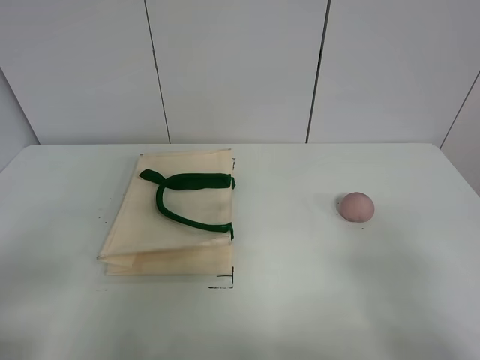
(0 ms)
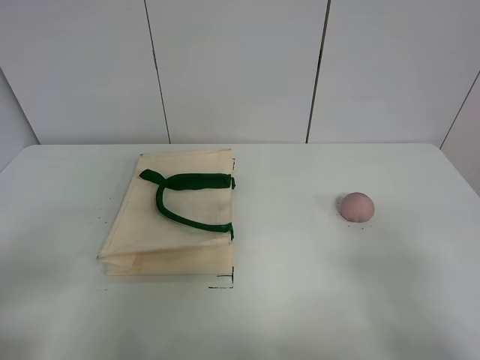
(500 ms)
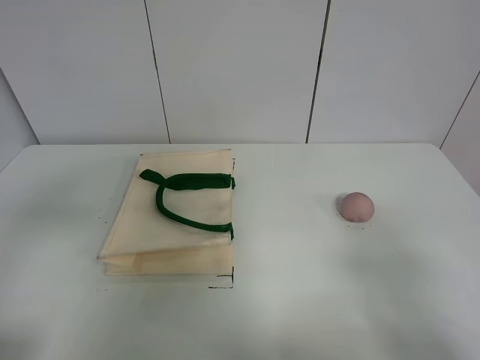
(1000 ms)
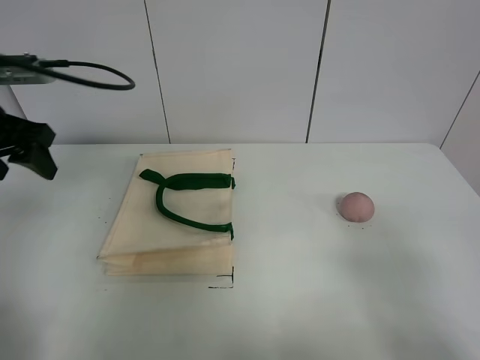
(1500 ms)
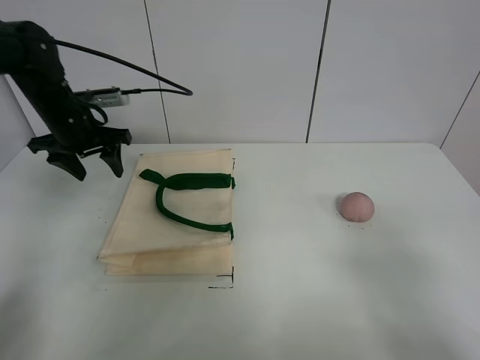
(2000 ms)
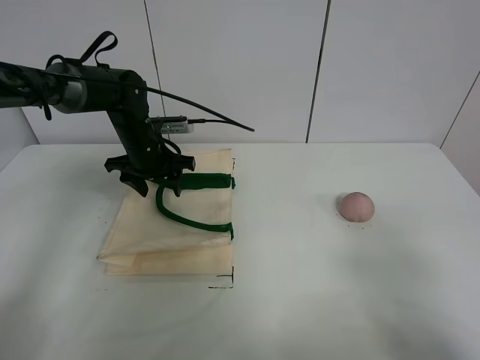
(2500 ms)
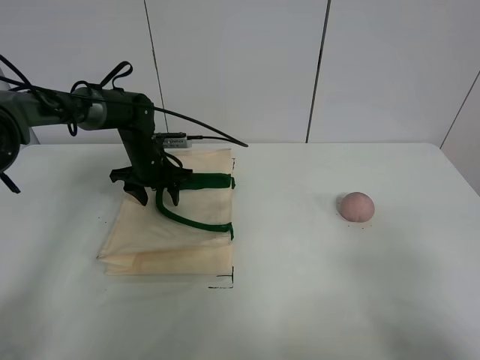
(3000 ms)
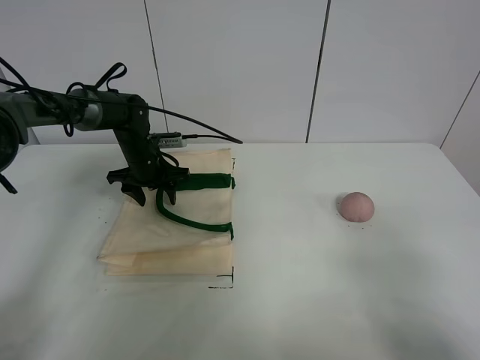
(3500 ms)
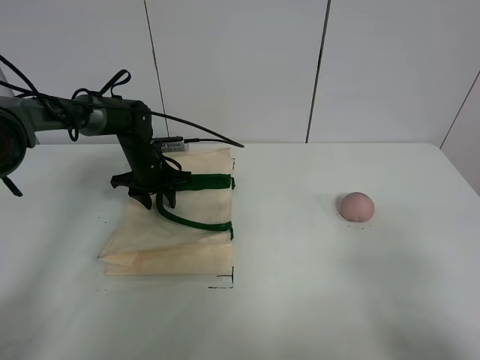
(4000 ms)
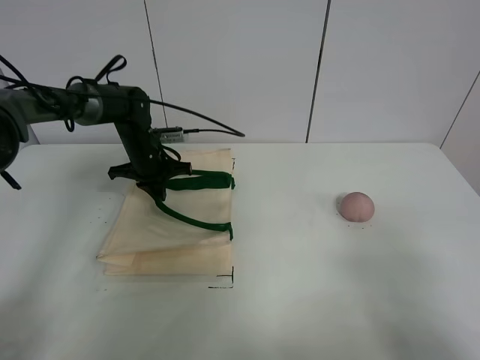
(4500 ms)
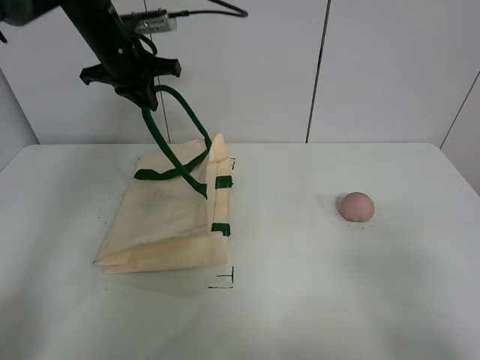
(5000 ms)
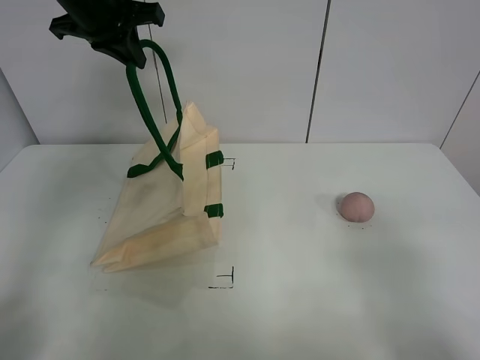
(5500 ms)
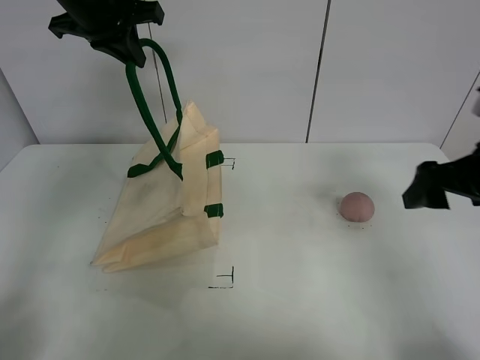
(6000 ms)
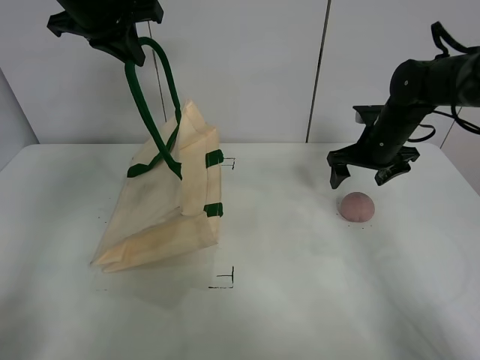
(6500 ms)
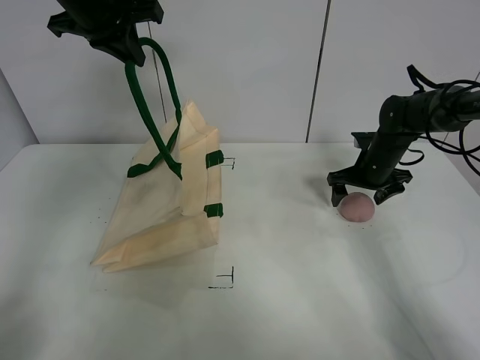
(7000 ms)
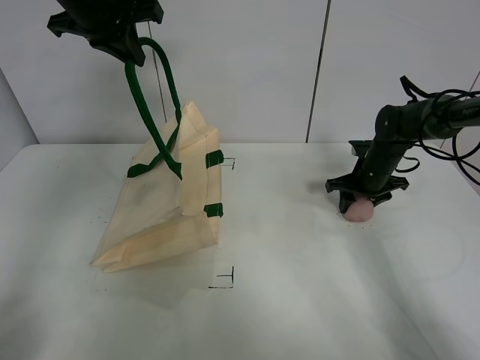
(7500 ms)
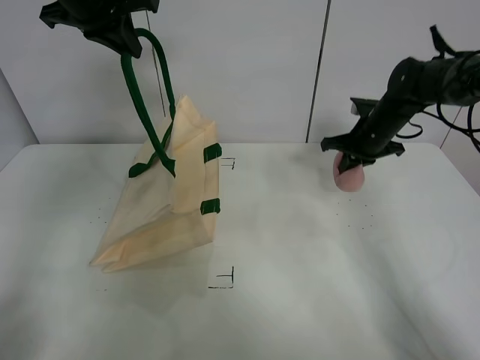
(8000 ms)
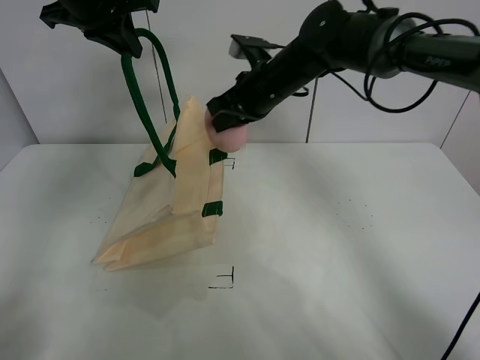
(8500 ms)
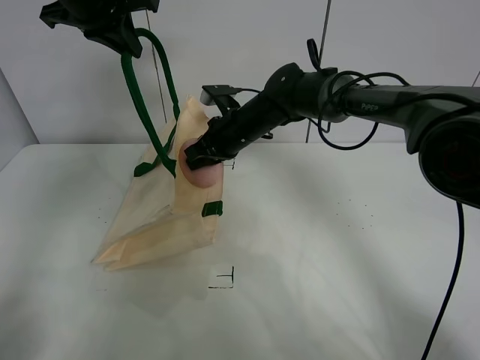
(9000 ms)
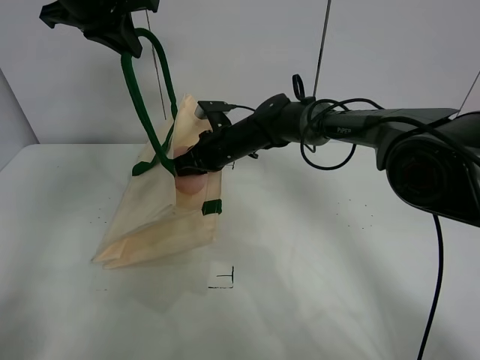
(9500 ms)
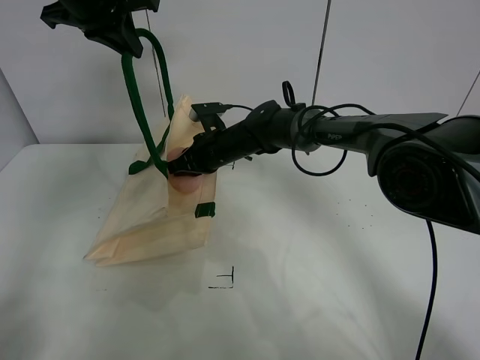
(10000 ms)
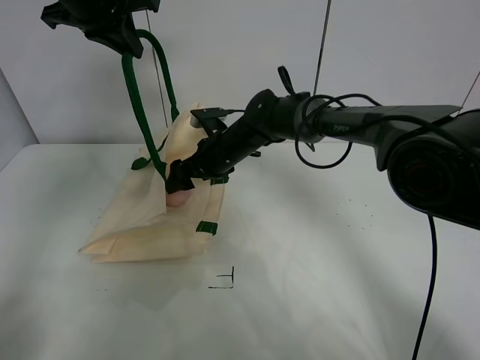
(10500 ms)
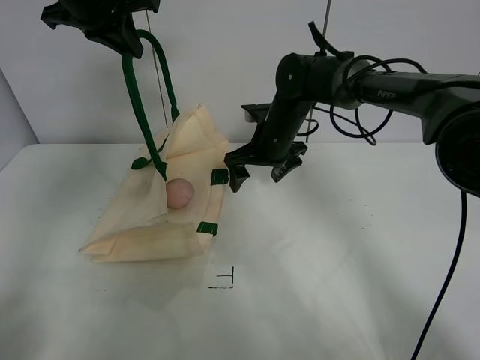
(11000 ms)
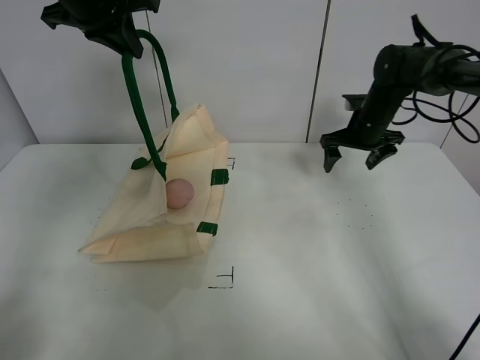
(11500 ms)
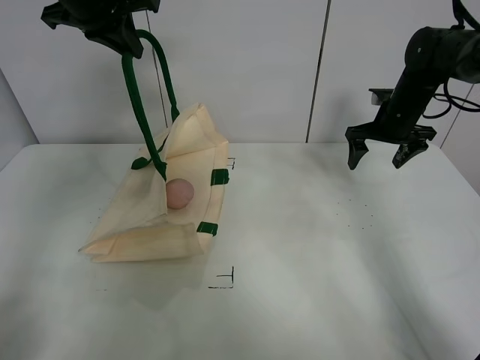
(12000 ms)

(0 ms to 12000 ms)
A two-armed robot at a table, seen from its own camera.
Task of the whole recording: open the white linen bag and put the peach in the bag.
Step, 0 ms - 5500 ms: Lift the handbag with left gripper.
Step, 6000 ms - 7500 ms: Grasp the peach with right gripper.
Step, 8000 ms - 10000 ms: Place the peach in the handbag with right gripper.
0 ms - 2000 ms: The left gripper heads forward, covering some 40 cm.
2000 ms - 4000 ms: The left gripper goes roughly 15 cm downward, to the right and forward, and closes its fingers.
4000 ms - 6000 ms: The right gripper goes roughly 25 cm forward. The left gripper is displaced upward by approximately 30 cm, and closes its fingers.
6000 ms - 8000 ms: The right gripper heads forward, covering some 20 cm, and closes up.
8000 ms - 10000 ms: The right gripper shifts some 25 cm to the left.
10000 ms - 12000 ms: The right gripper heads to the right, covering some 30 cm, and opens up.

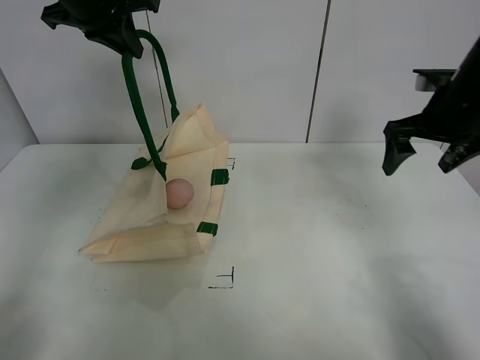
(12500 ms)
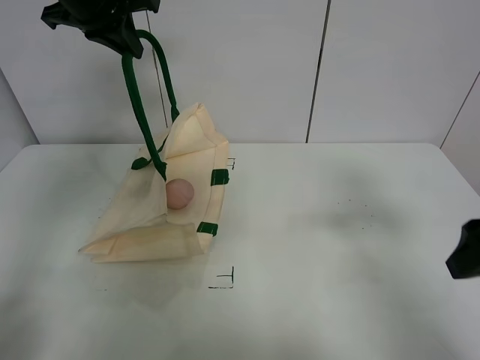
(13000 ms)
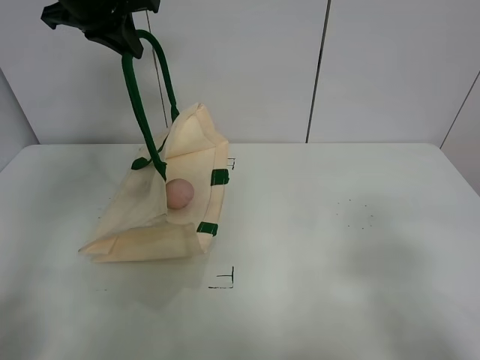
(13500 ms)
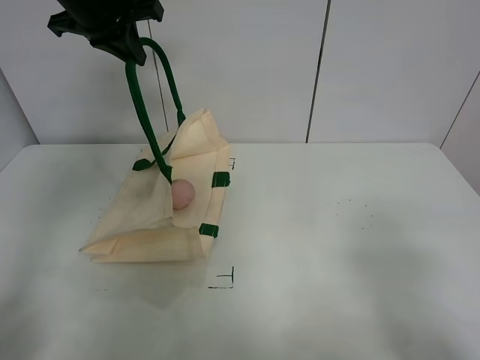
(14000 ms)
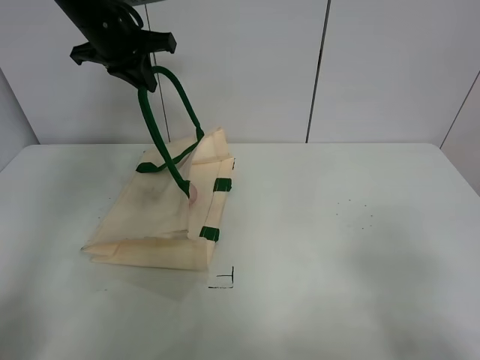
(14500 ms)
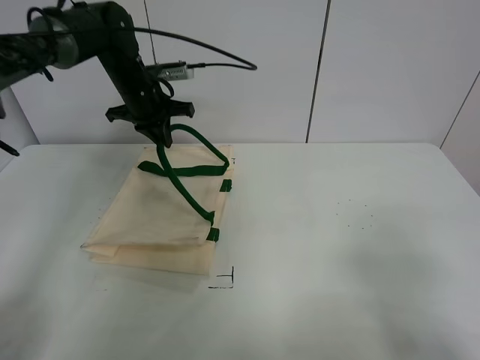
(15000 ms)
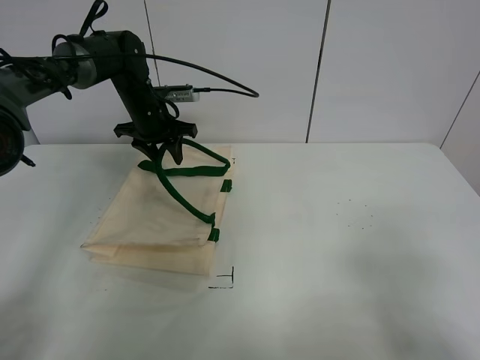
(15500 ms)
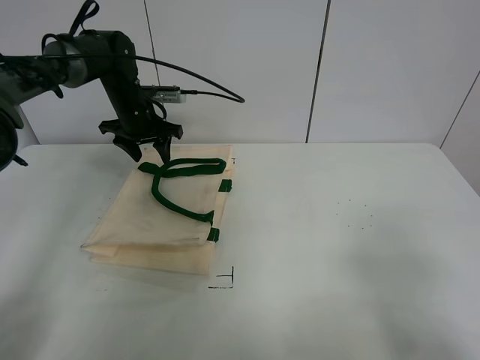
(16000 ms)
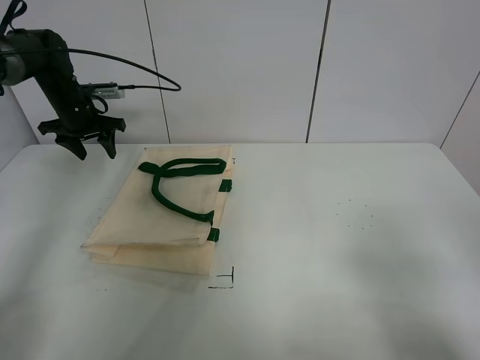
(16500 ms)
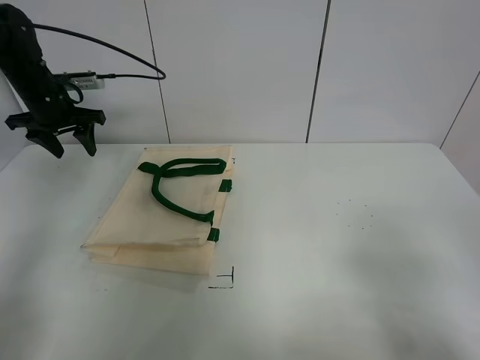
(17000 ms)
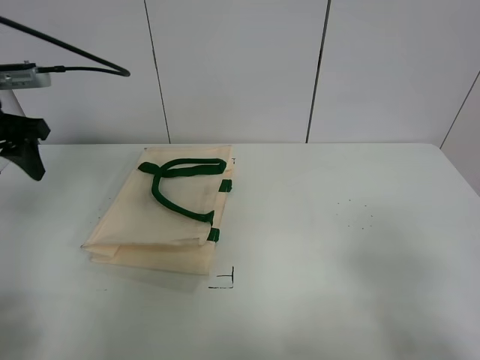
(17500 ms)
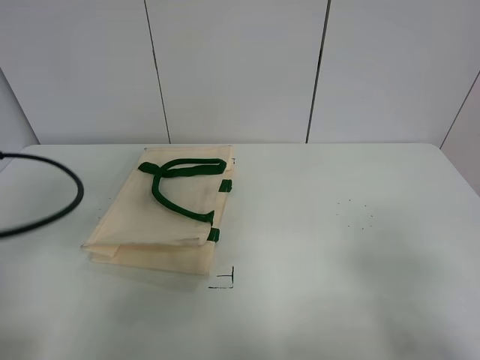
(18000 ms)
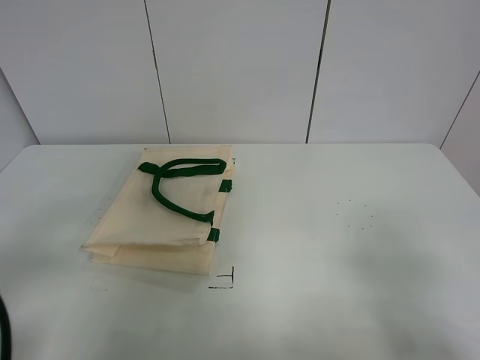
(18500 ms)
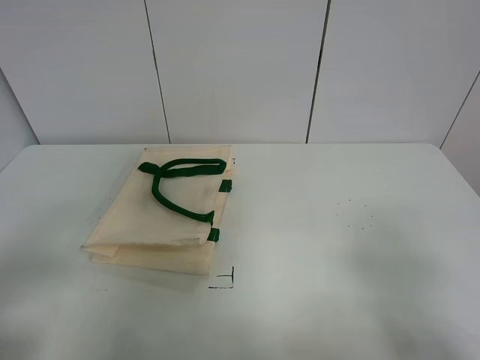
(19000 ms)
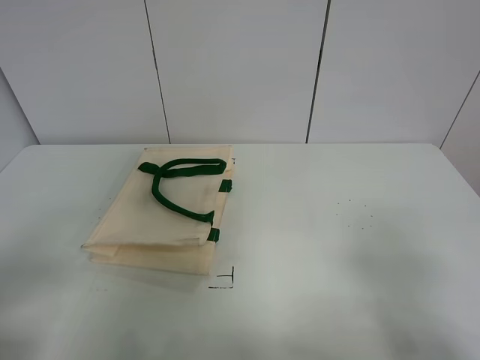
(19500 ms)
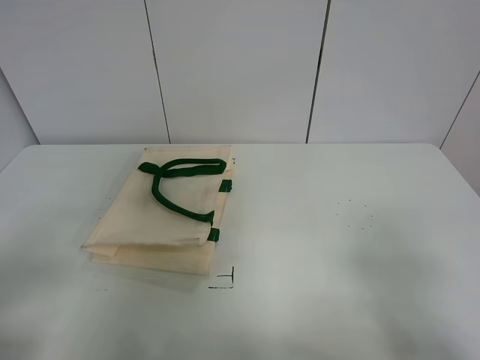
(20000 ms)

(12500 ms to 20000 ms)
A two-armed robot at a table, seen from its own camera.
Task of the whole recording: open the white linen bag and put the peach in the bag.
Step, 12500 ms - 16000 ms: Put down the handbag with left gripper.
12500 ms - 14500 ms: The right gripper travels backward by approximately 35 cm. The left gripper is displaced downward by roughly 5 cm.
14500 ms - 16500 ms: The left gripper moves downward, to the left and forward, roughly 20 cm, and opens up.
16500 ms - 18000 ms: The left gripper shifts some 35 cm backward.
18000 ms - 20000 ms: The left gripper moves backward, about 15 cm.

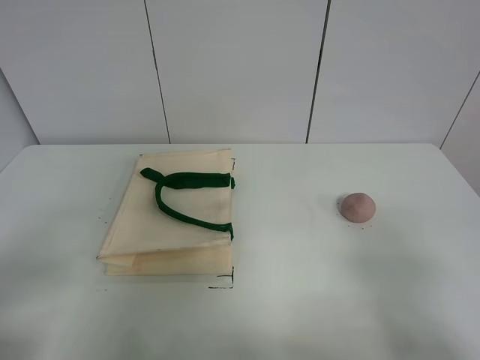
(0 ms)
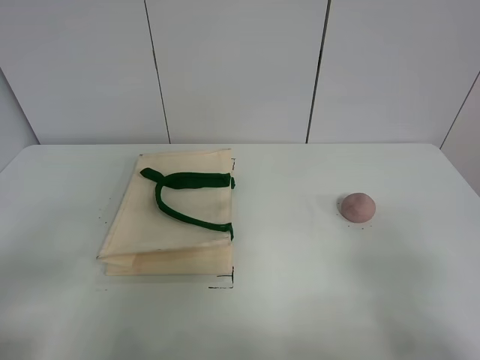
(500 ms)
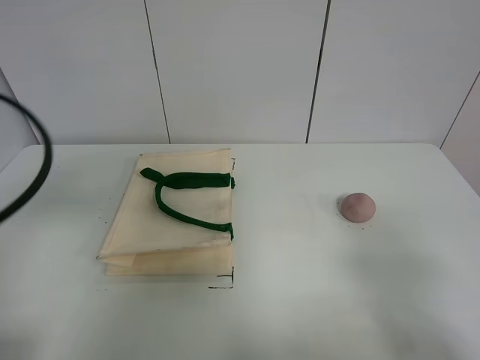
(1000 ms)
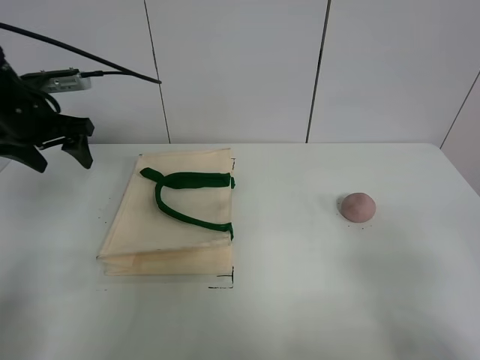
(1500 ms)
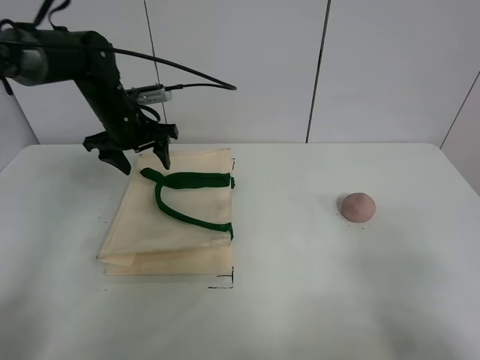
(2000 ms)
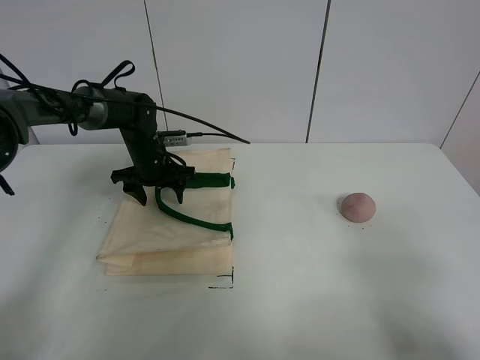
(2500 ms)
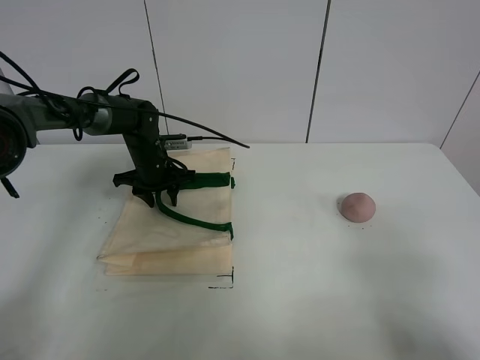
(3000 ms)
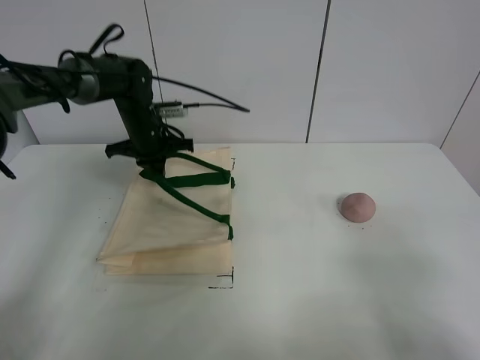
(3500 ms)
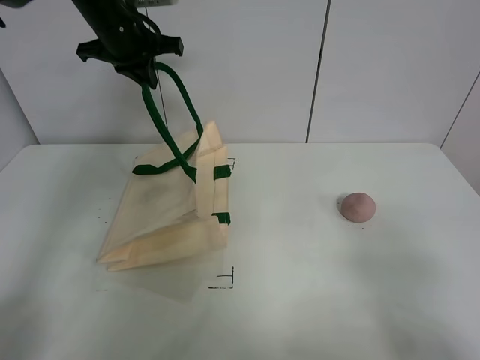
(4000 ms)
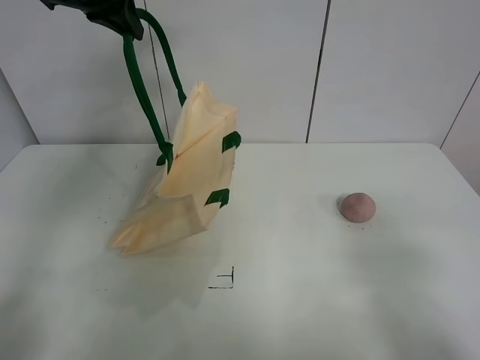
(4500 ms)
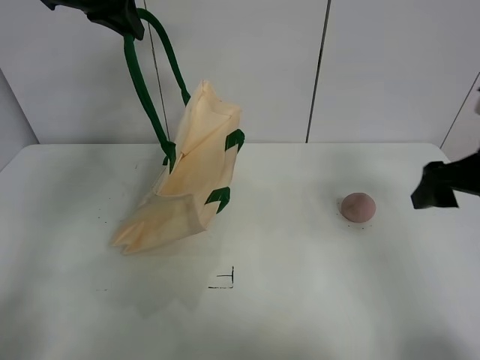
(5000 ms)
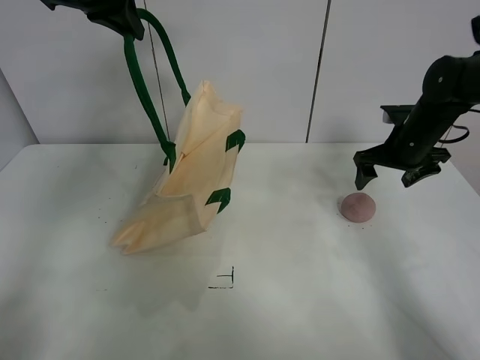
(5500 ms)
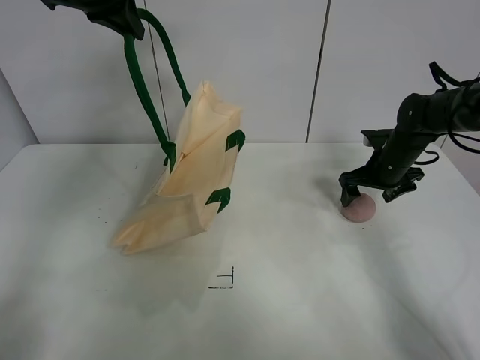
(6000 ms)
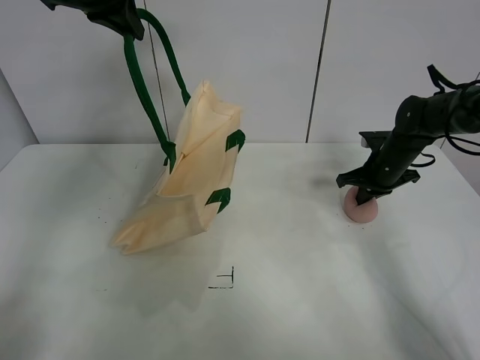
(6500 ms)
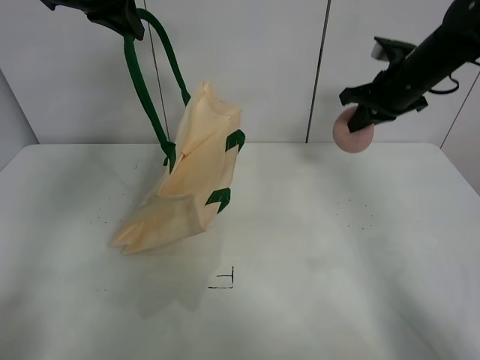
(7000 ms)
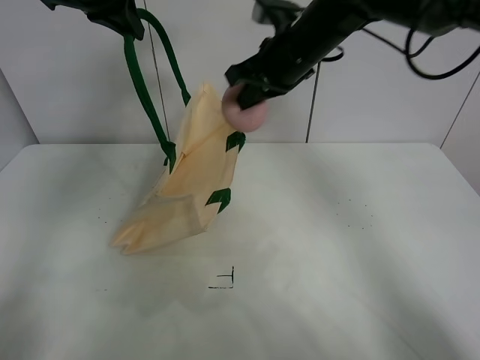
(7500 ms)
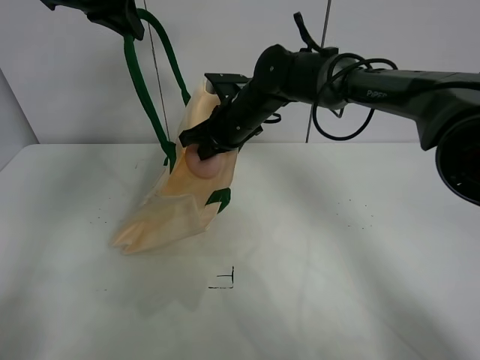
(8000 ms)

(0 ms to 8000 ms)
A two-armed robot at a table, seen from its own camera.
Task of the whole recording: open the white linen bag and put the peach in the bag.
Step, 0 ms - 4000 ms: Lift the handbag with left gripper.
Step, 4500 ms - 6500 ms: Grasp the peach with right gripper.
0 ms - 2000 ms: The left gripper moves forward, some 40 cm.
2000 ms - 4000 ms: The left gripper travels upward by some 15 cm, and closes up.
4000 ms - 6000 ms: The right gripper travels forward by roughly 40 cm. Meanwhile the left gripper travels upward by about 5 cm.
6000 ms - 8000 ms: The right gripper is displaced to the left by about 25 cm, and closes.
